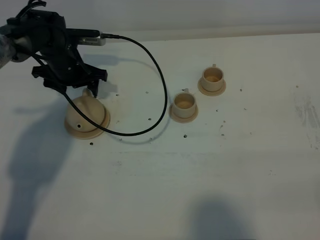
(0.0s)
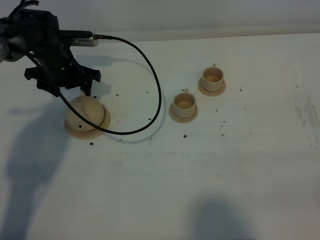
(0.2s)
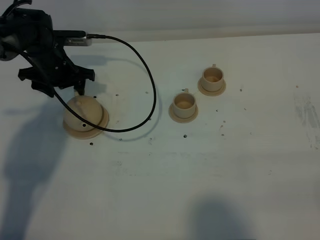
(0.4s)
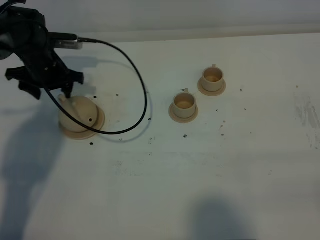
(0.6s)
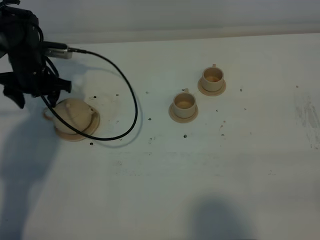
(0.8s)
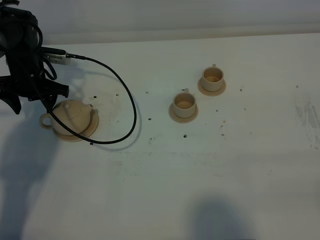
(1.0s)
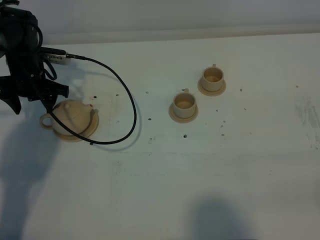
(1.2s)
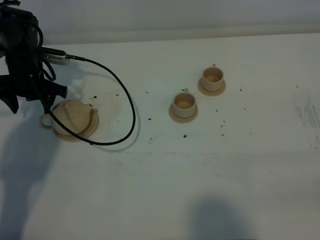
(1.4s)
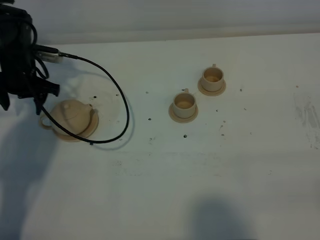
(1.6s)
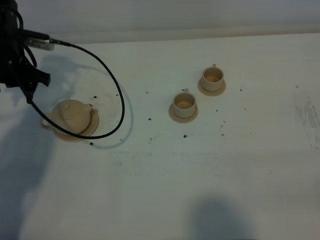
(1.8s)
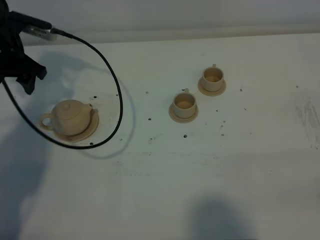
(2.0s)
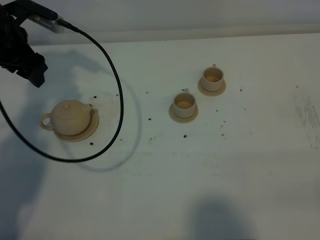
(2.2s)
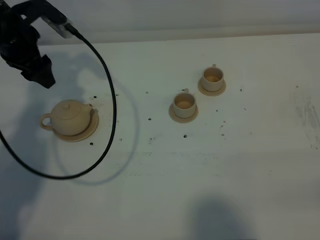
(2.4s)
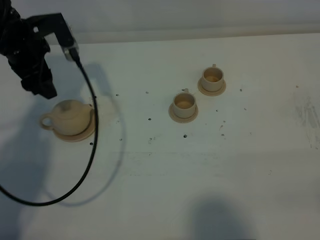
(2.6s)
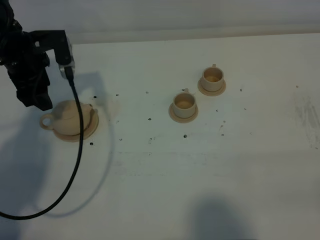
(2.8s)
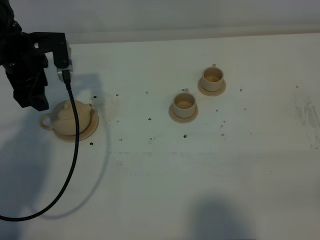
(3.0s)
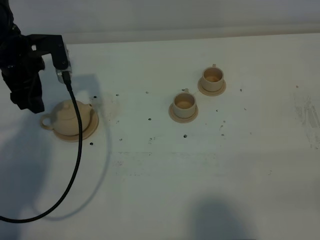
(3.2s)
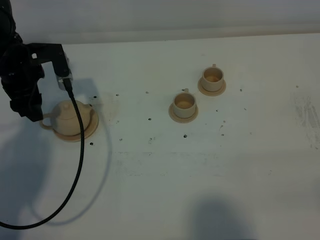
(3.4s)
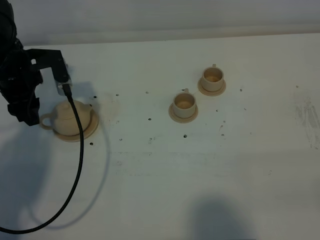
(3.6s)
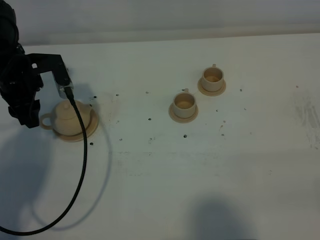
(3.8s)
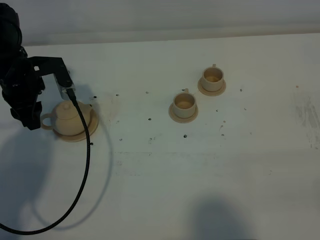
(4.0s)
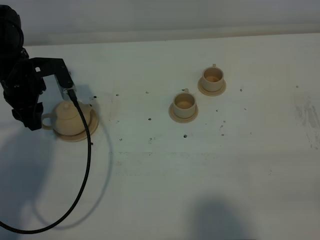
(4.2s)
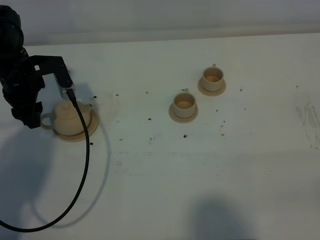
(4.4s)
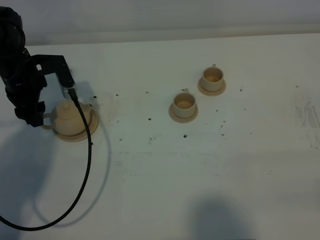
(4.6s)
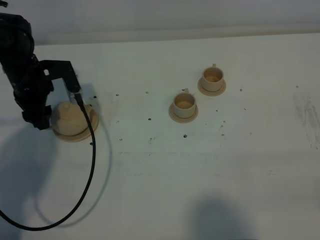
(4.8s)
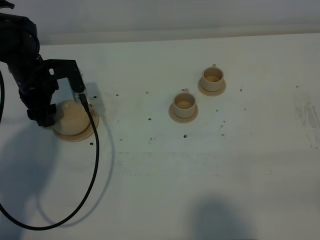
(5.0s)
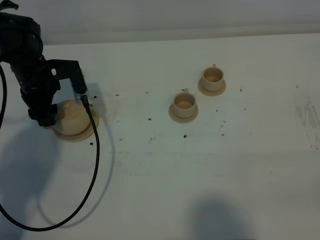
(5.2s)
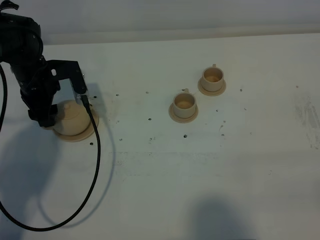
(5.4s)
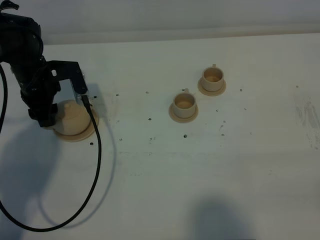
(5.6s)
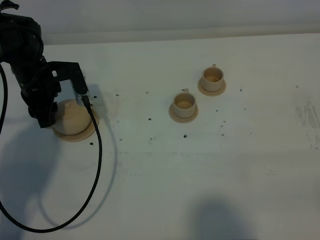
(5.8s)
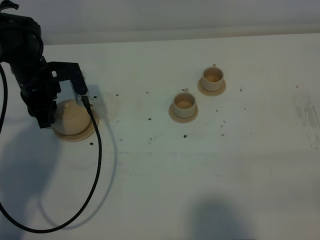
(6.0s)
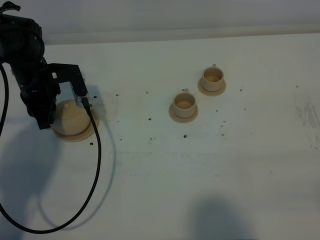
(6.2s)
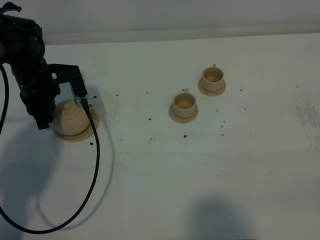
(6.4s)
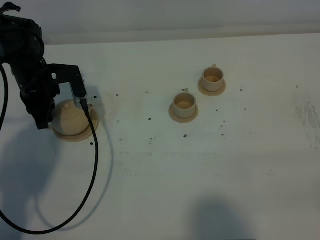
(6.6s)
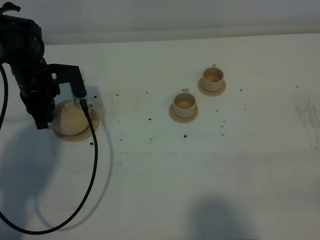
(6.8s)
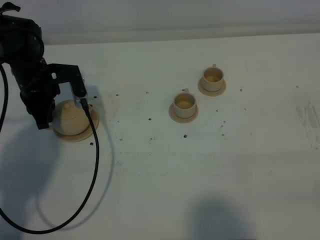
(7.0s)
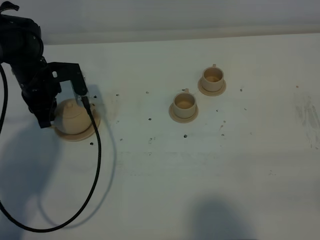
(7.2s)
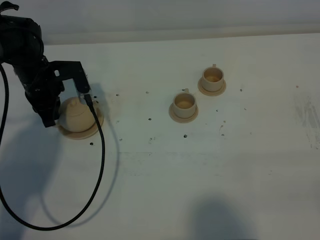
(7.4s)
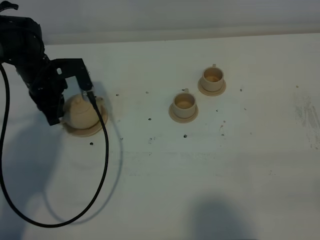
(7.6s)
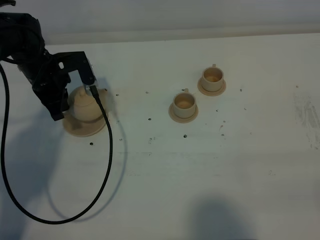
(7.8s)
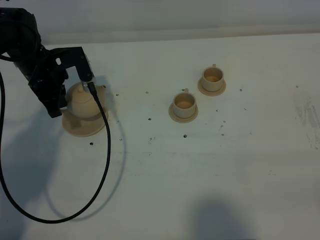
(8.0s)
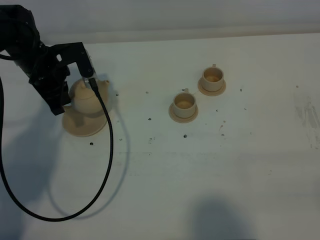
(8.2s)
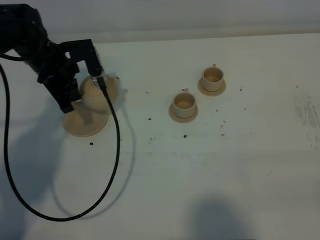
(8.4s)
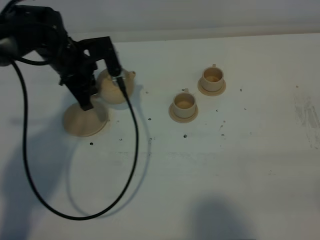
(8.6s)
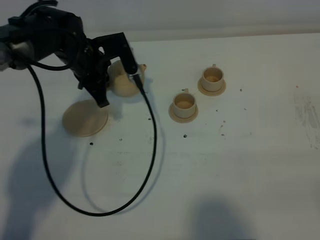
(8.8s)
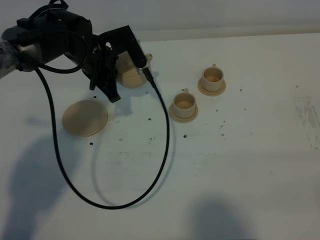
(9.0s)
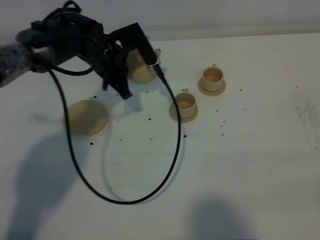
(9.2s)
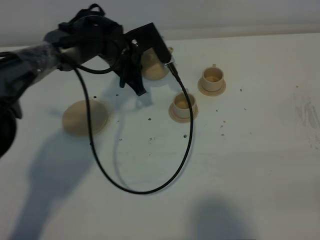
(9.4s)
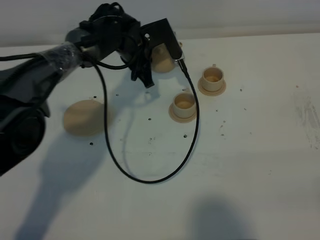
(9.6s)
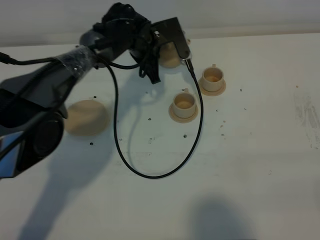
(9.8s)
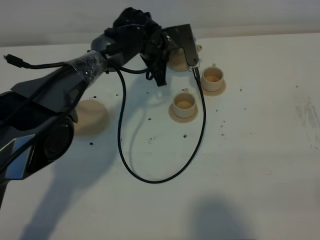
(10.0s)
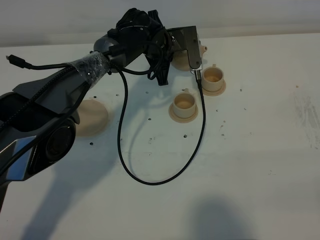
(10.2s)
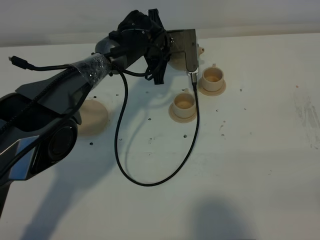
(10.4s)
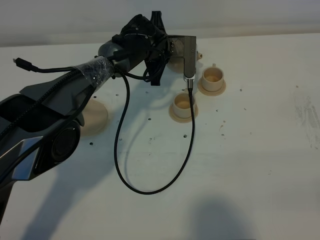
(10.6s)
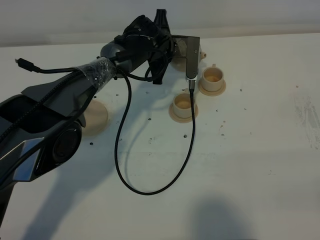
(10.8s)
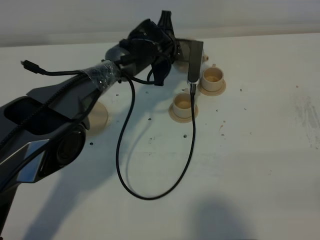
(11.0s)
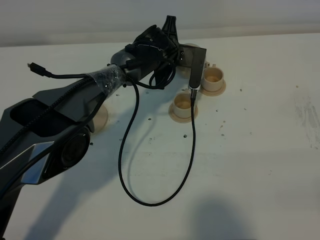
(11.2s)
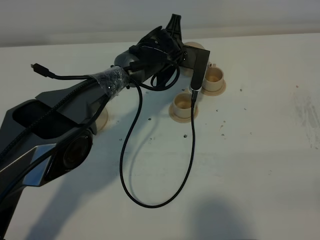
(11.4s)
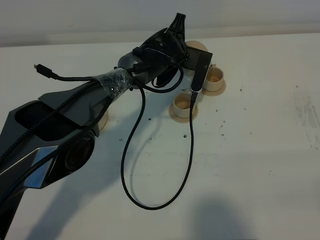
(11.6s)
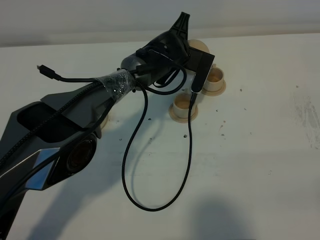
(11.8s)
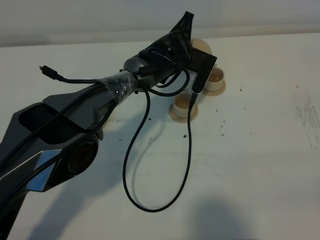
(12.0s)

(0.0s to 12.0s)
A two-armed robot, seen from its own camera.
Task of the whole recording: grasp the brown teapot and pour the tea into the two brown teacups one by one, put the brown teapot back in its original place.
Step, 0.0s - 7.6s: Pick up the teapot with the left gripper.
0.0s - 1.6s: The left gripper moves to the left, about 10 cm.
1.6s - 3.0s: The left gripper is displaced upward by roughly 5 cm.
3.0s - 4.4s: The grippers stay close to where they were, moving slightly.
4.4s - 6.0s: The left gripper closes up.
6.0s - 7.6s: The grippers stay close to where they were, moving slightly.
7.6s - 9.0s: The left gripper travels to the right by some 10 cm.
9.0s - 10.4s: The left gripper moves to the right and forward, roughly 15 cm.
10.4s - 12.0s: The left gripper changes place by about 5 cm.

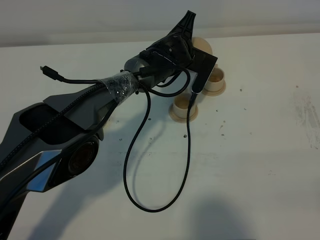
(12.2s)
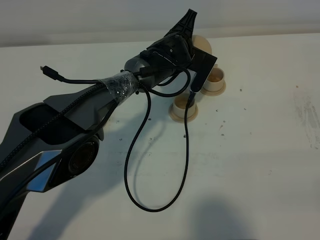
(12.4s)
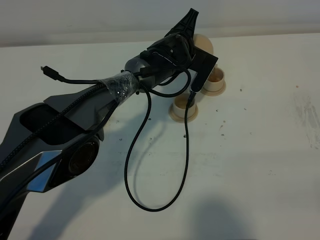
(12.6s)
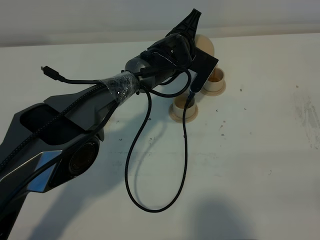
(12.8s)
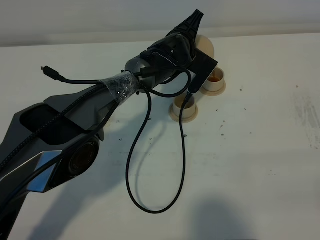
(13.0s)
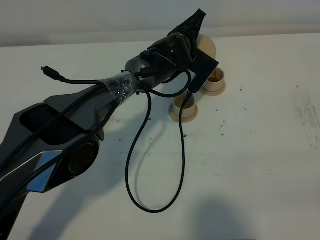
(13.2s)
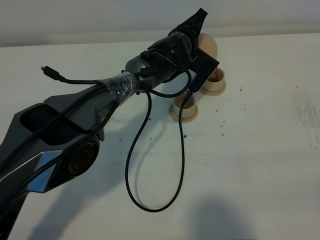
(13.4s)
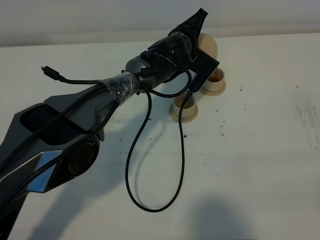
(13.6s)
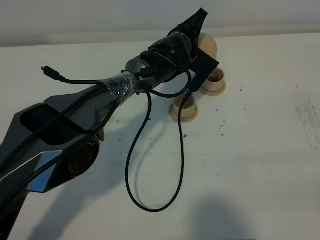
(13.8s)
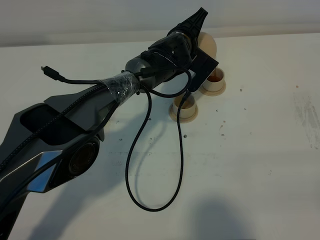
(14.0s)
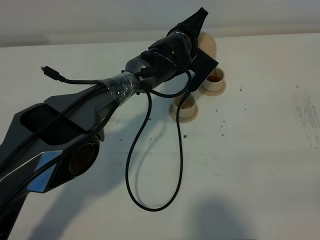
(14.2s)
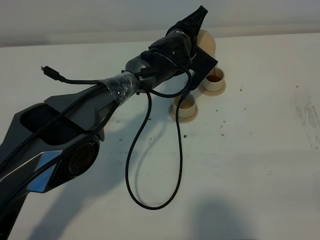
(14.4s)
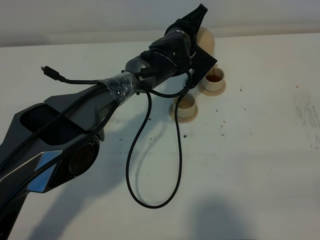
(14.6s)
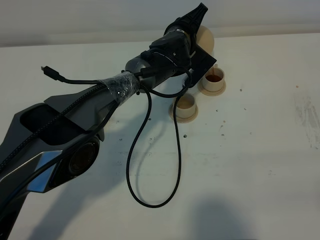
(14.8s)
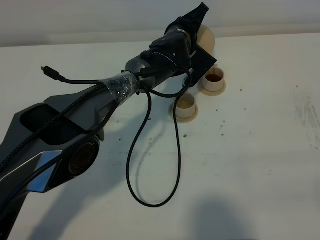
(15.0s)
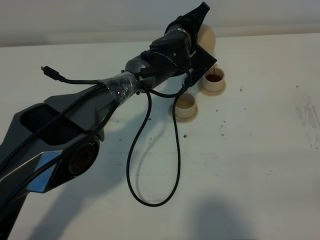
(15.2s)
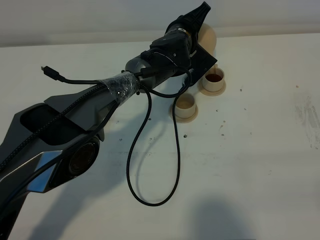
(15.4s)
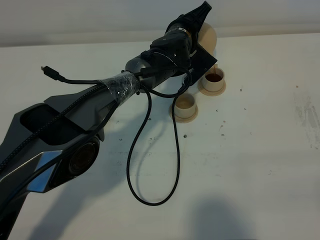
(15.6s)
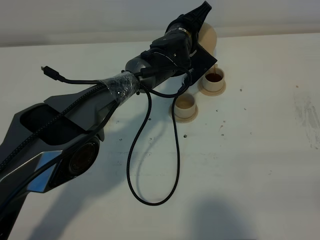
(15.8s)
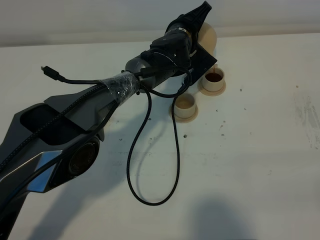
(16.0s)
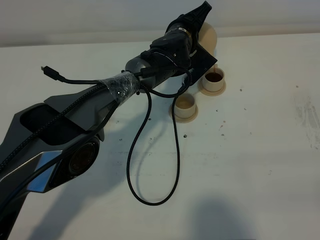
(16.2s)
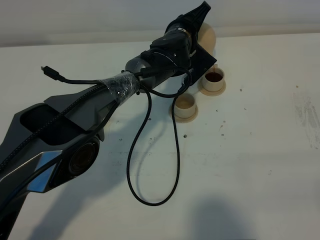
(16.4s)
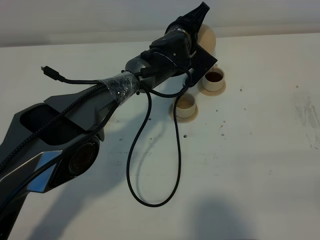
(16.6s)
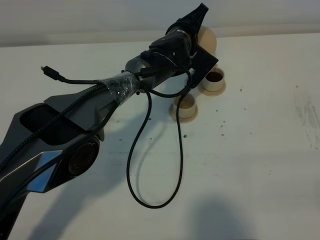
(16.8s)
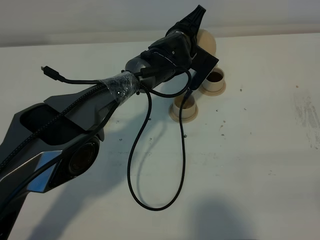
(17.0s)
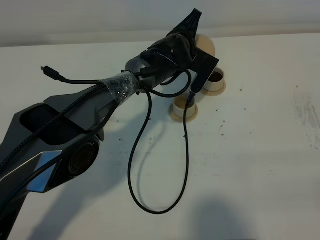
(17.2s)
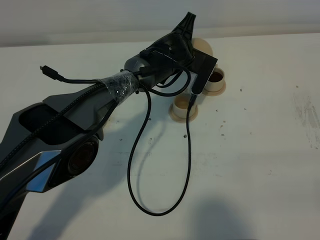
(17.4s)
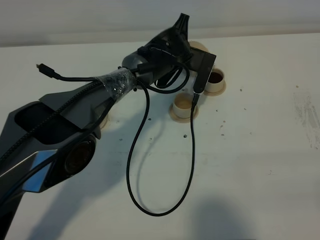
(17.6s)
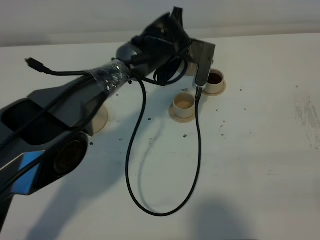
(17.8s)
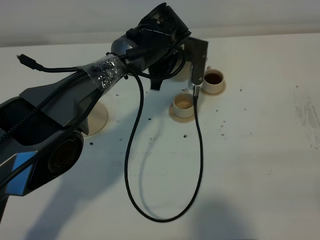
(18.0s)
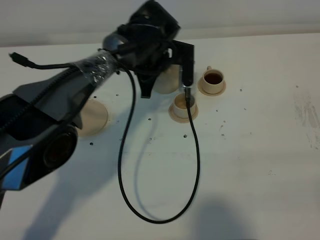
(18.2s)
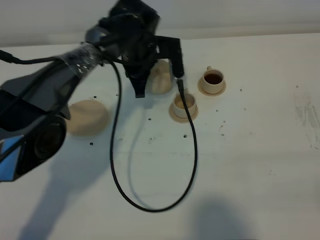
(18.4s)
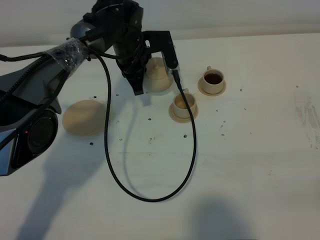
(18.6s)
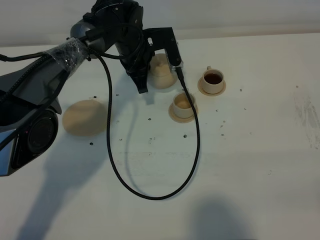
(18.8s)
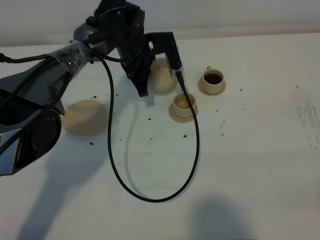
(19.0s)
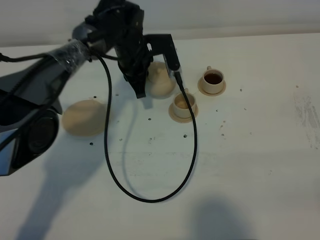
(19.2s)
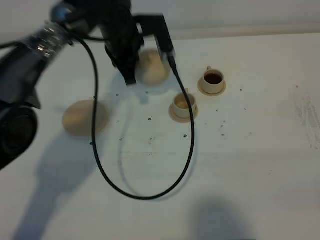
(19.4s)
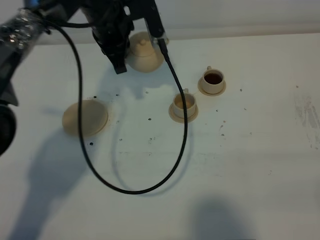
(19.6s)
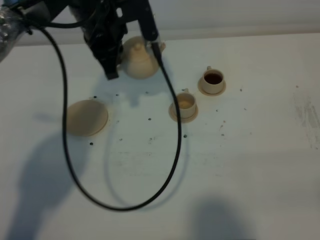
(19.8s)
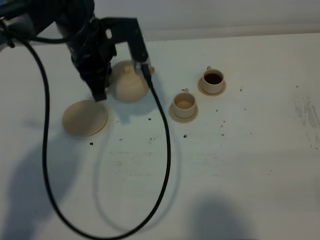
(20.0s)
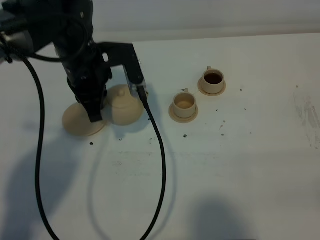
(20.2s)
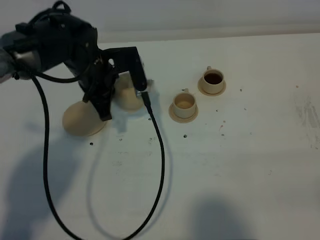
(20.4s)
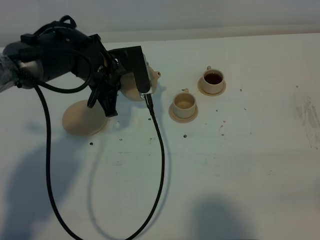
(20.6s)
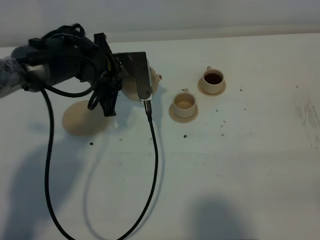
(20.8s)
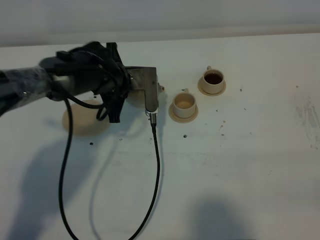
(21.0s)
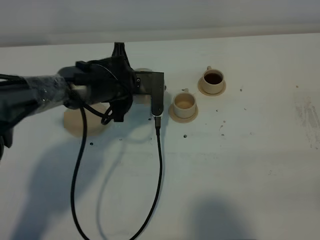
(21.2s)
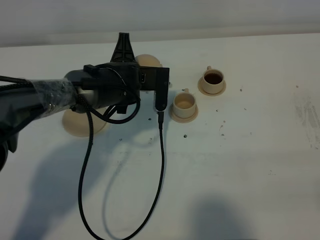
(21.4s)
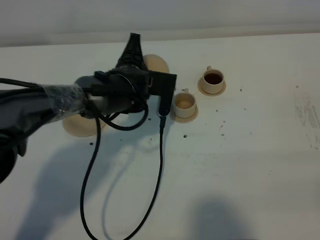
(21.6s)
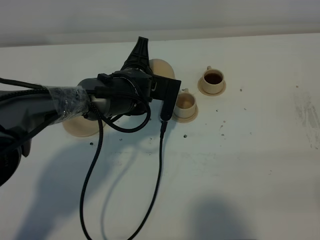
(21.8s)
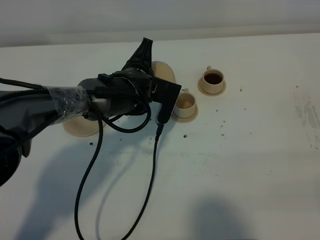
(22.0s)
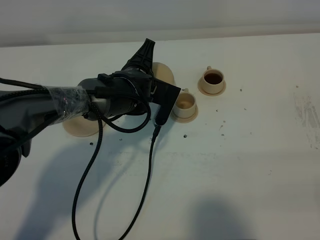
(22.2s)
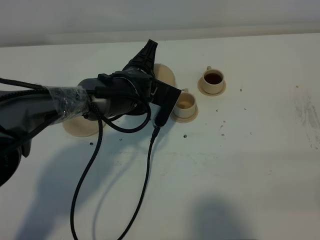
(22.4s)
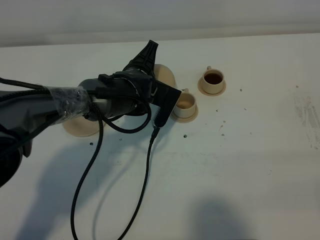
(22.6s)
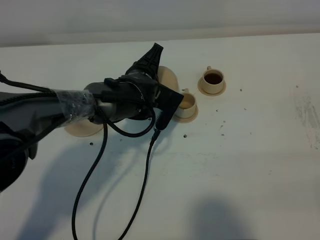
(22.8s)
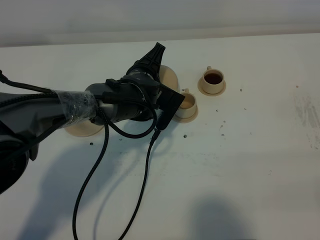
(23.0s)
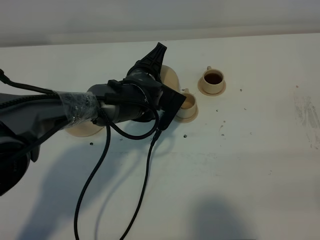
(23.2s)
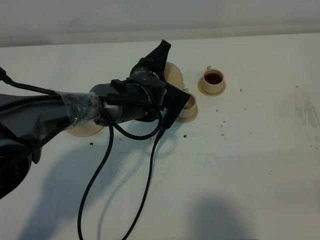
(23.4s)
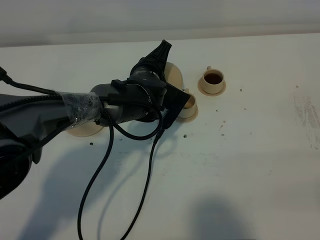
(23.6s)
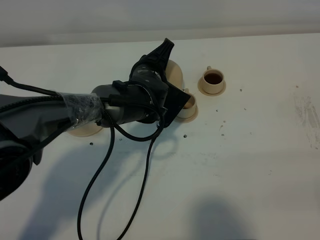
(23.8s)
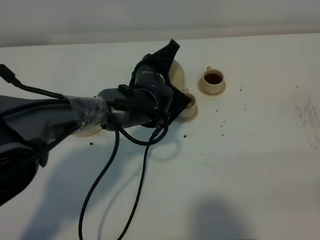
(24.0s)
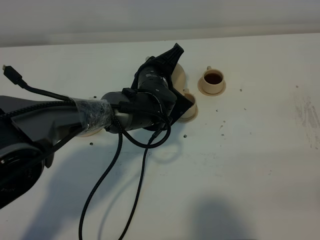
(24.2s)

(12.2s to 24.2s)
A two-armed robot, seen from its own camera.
Task of the whole recording: grasp the brown teapot and pour the tea into the two brown teacups one by one, put the brown teapot back in its original place.
12.2s - 15.2s: The grippers make only small movements.
15.2s - 16.6s: The two grippers keep their place.
16.6s - 18.2s: The left gripper travels to the left by approximately 5 cm.
18.2s - 19.8s: The left gripper travels upward and to the left by approximately 15 cm.
19.8s - 21.2s: The left gripper heads downward, covering about 15 cm.
22.6s - 24.2s: There are only small adjustments of the grippers.
